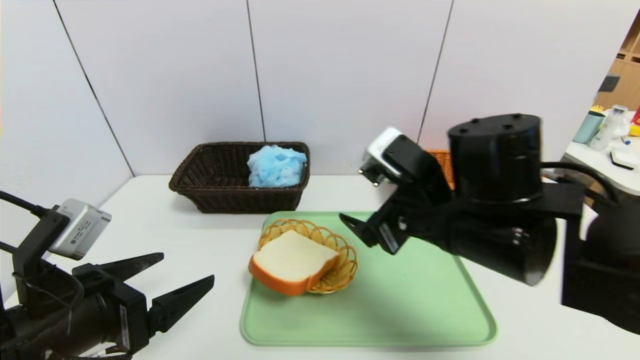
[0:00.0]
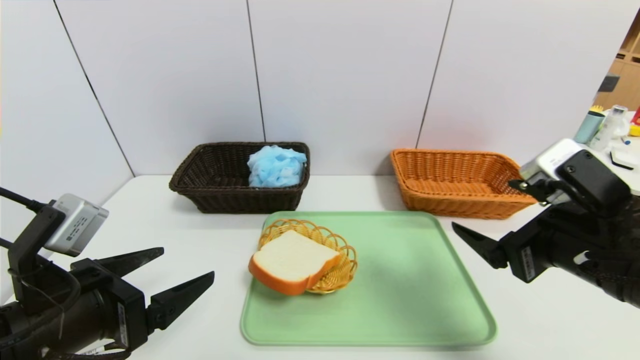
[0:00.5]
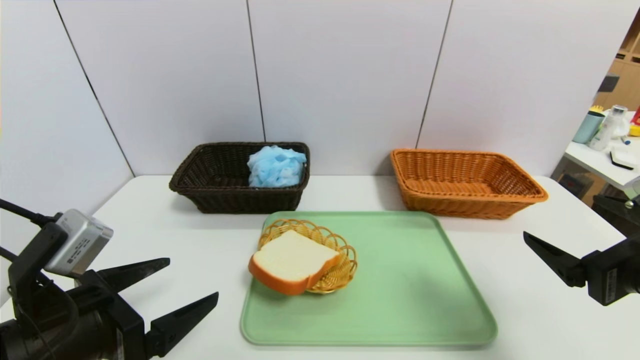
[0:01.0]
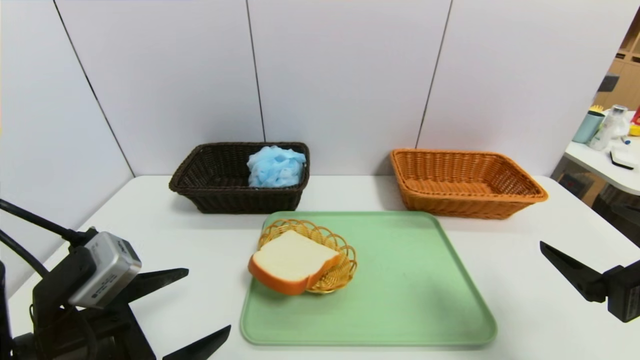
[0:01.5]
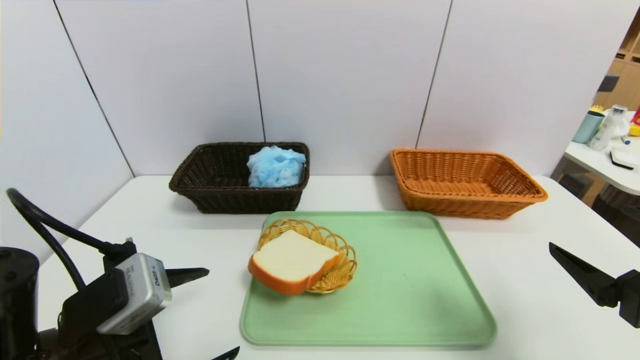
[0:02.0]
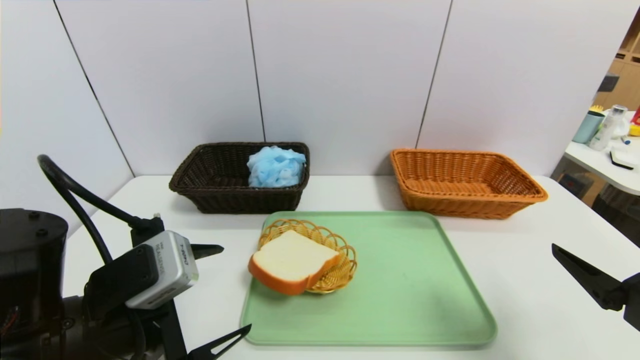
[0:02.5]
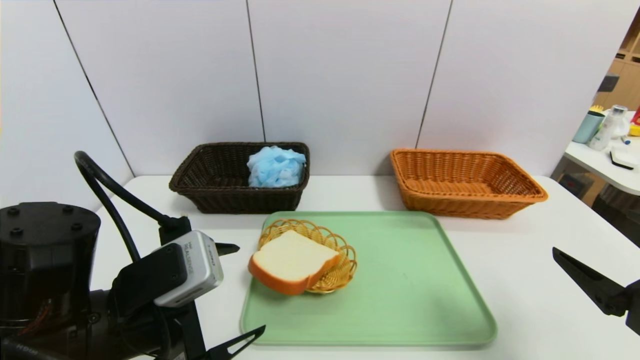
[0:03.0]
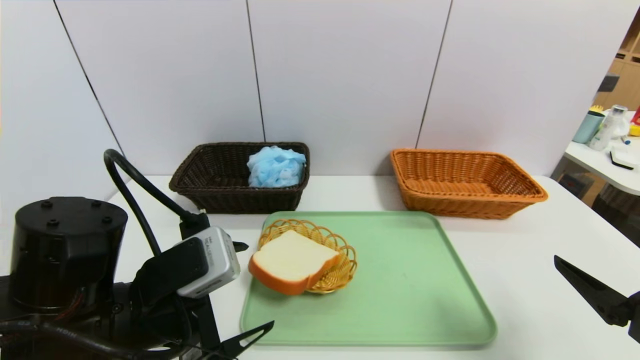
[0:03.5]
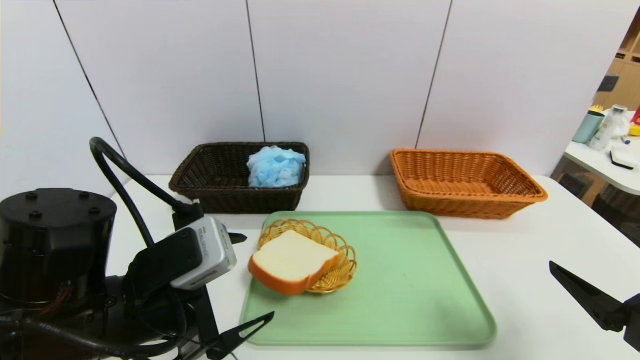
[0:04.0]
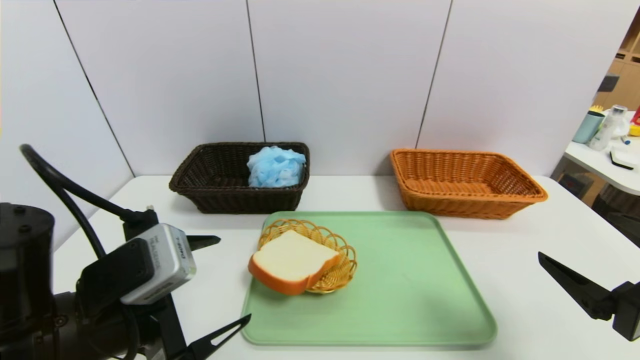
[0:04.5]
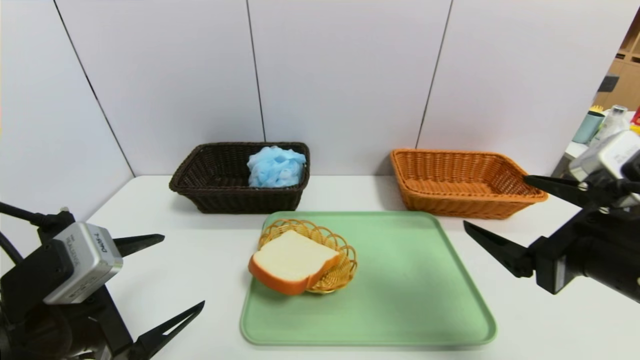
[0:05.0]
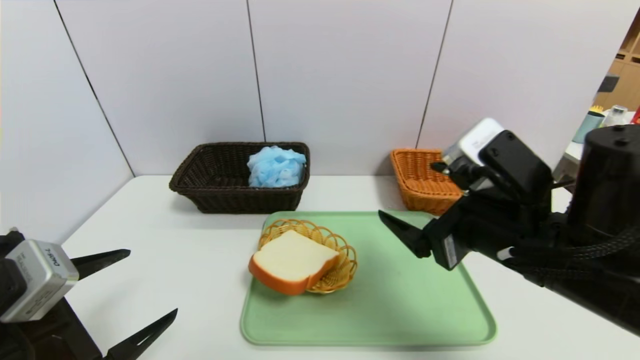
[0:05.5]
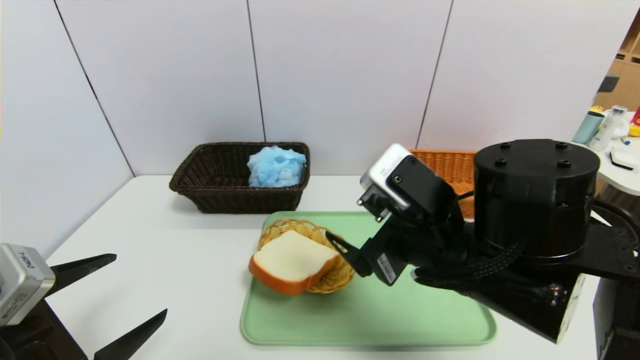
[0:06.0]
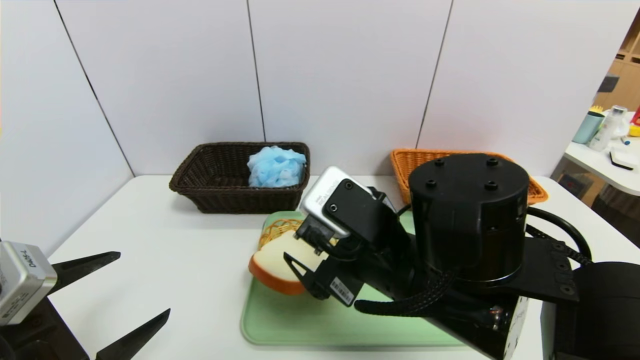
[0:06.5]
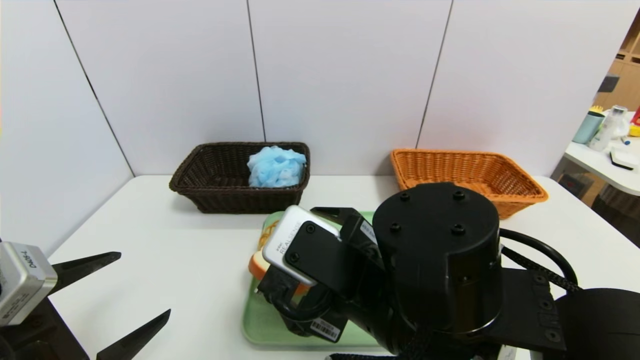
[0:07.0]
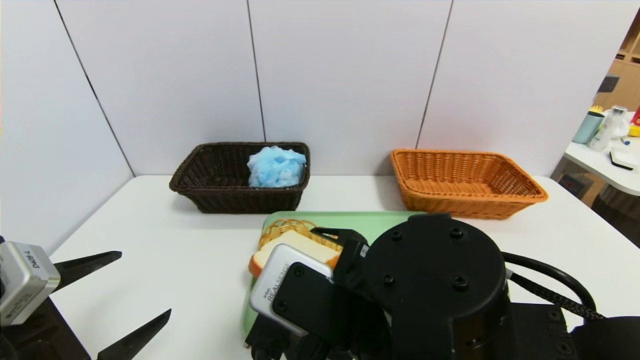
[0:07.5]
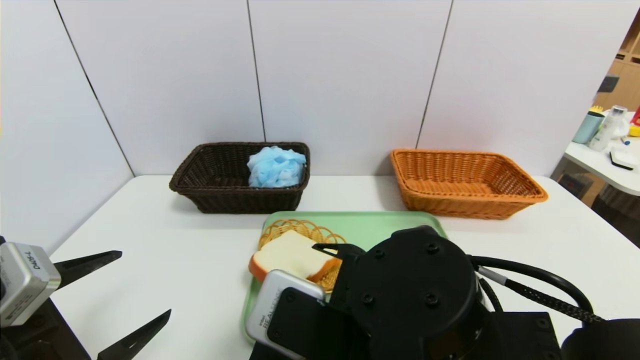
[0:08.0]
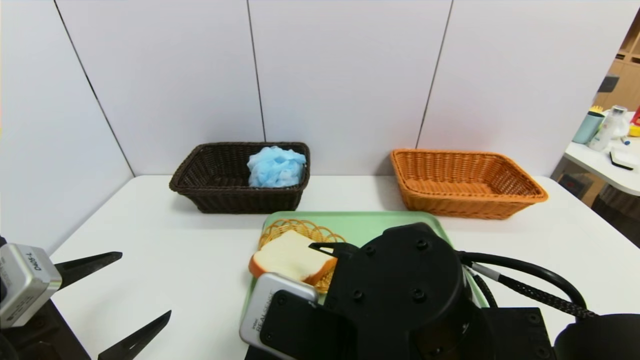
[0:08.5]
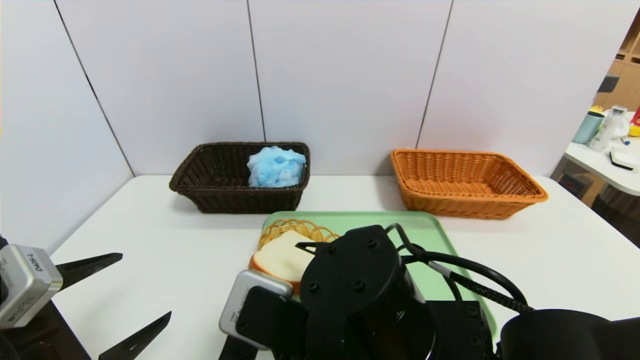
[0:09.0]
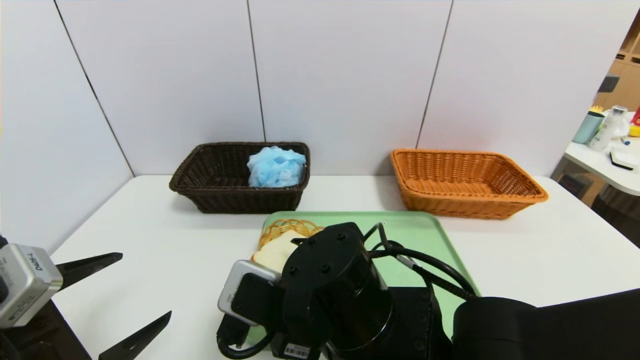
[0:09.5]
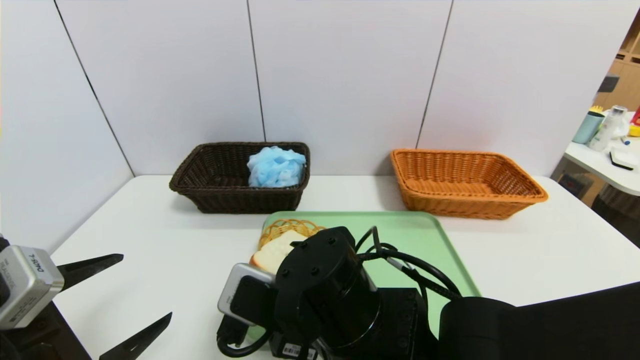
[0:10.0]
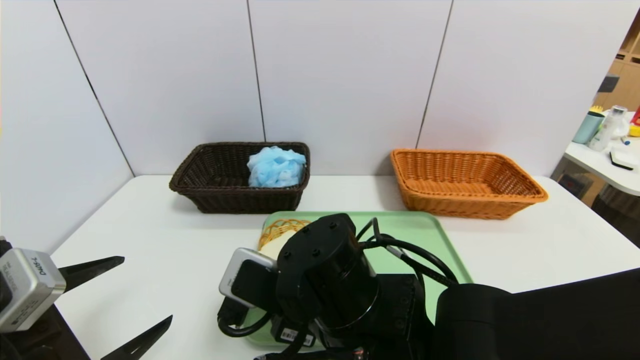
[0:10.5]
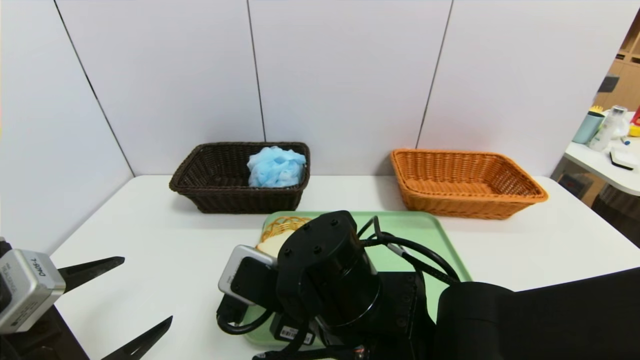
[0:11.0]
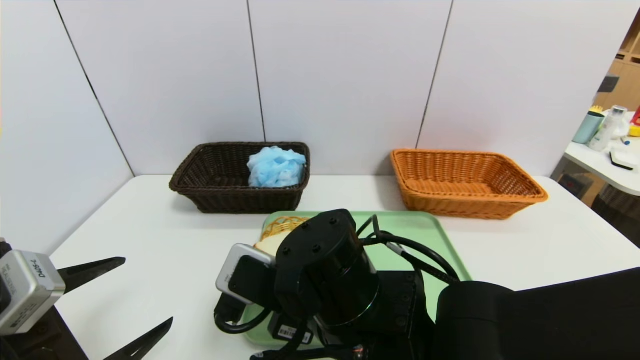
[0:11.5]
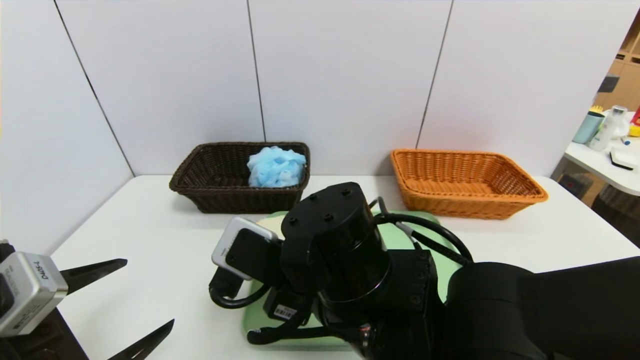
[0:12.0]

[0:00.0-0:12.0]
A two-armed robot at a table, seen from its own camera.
Task of the whole recording: place the food in the right basket with the right gripper, and place the non food items in the left basket with the left gripper.
0:00.0 to 0:02.0: The right gripper moves to the right and backward, roughly 20 cm.
0:02.0 to 0:04.0: The left gripper shifts by about 5 cm.
0:04.0 to 0:06.0: The left gripper travels to the left and backward by approximately 10 cm, while the right gripper shifts some 20 cm to the left and forward.
0:06.0 to 0:08.0: The right gripper goes some 10 cm to the left and backward.
0:08.0 to 0:10.0: The right gripper moves roughly 5 cm.
0:10.0 to 0:12.0: The right gripper closes up.

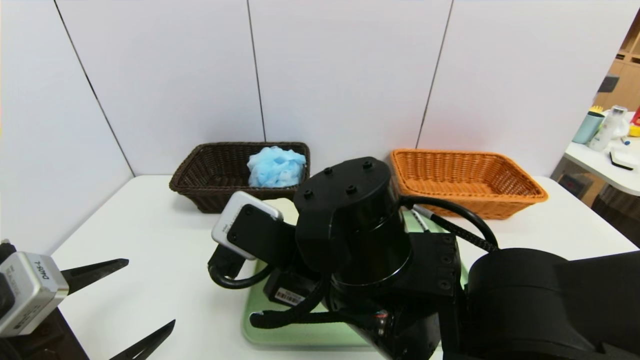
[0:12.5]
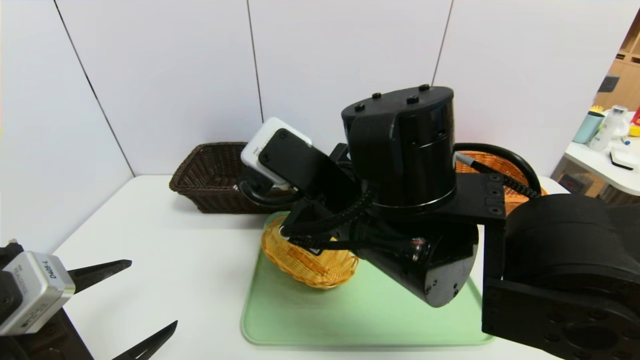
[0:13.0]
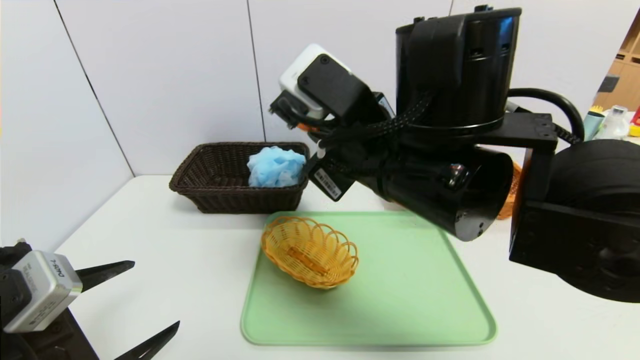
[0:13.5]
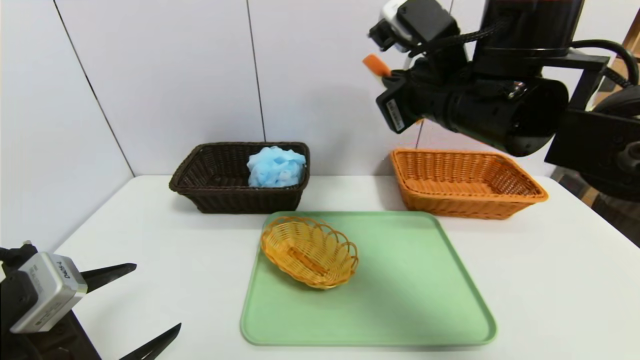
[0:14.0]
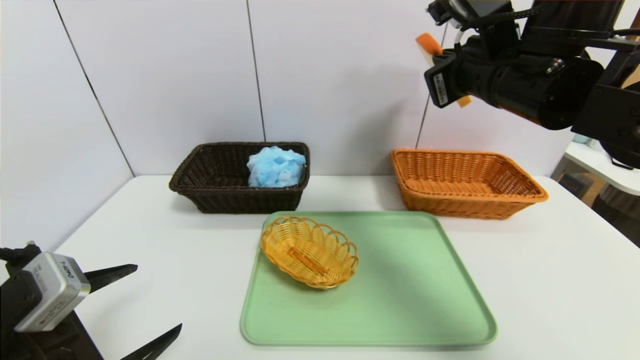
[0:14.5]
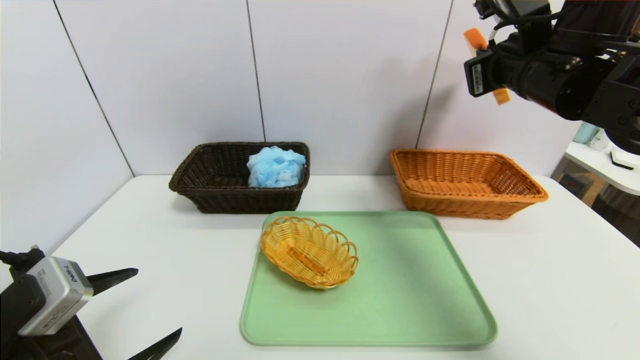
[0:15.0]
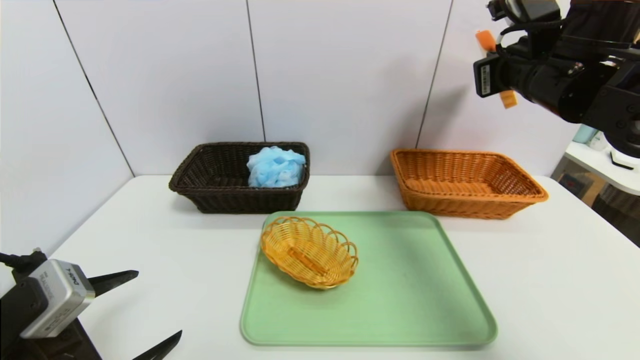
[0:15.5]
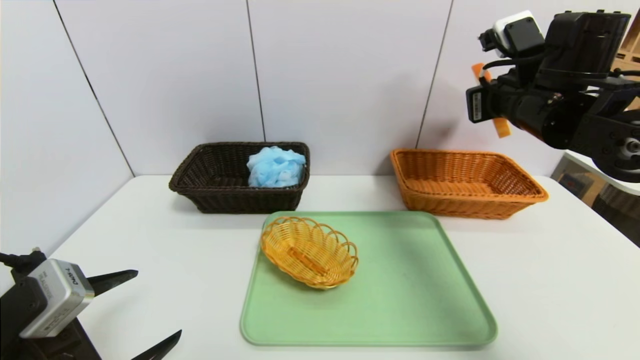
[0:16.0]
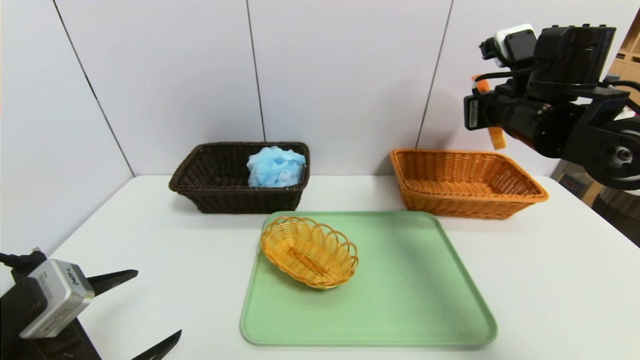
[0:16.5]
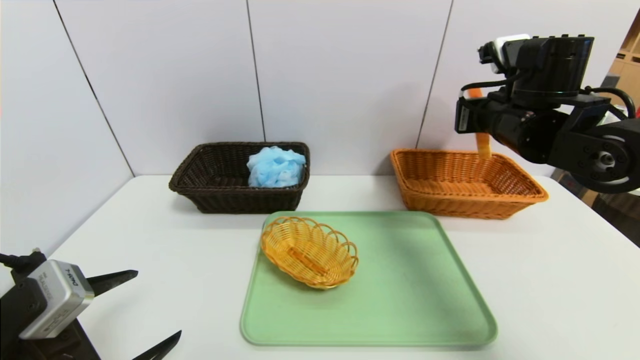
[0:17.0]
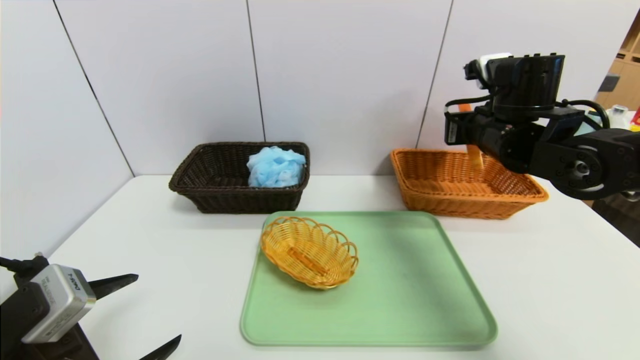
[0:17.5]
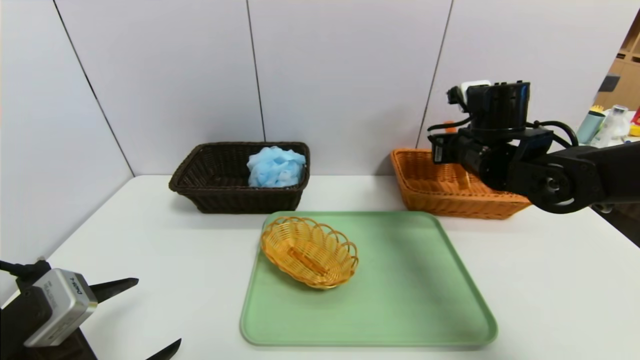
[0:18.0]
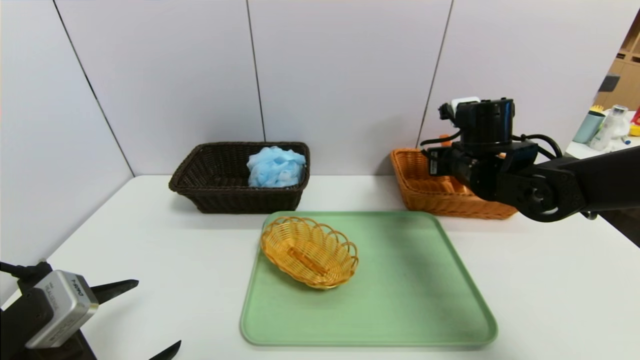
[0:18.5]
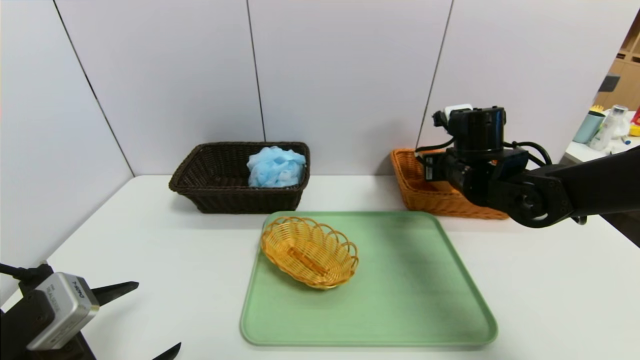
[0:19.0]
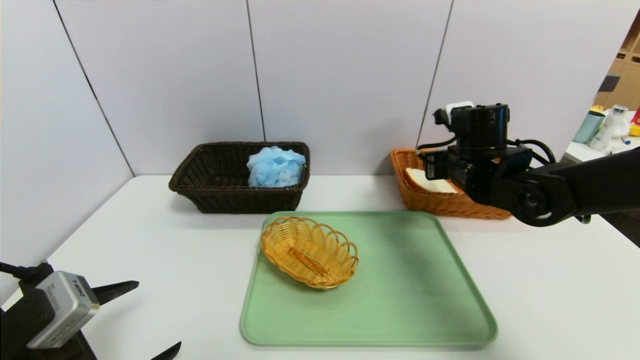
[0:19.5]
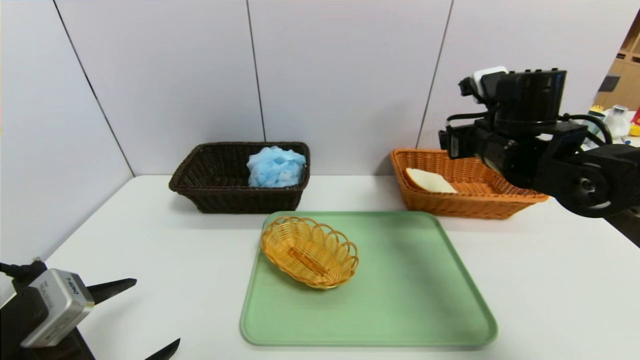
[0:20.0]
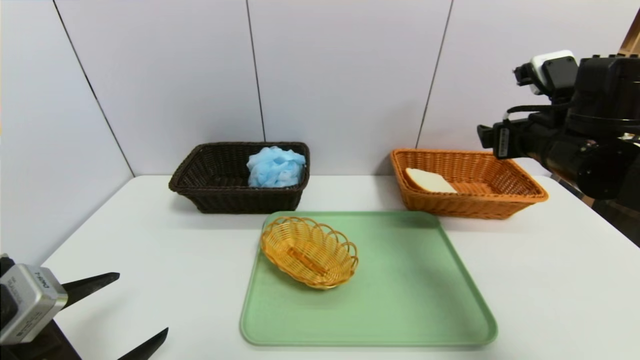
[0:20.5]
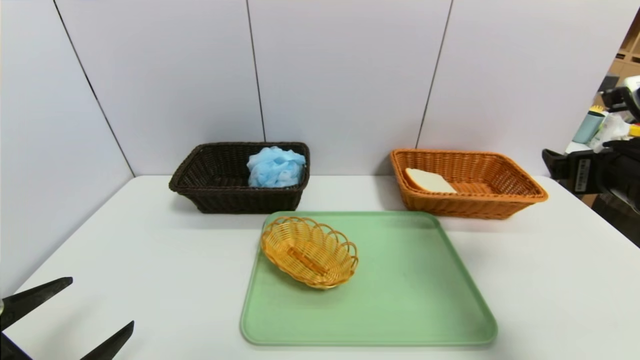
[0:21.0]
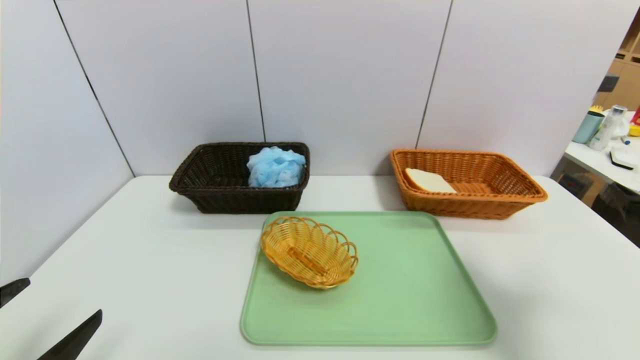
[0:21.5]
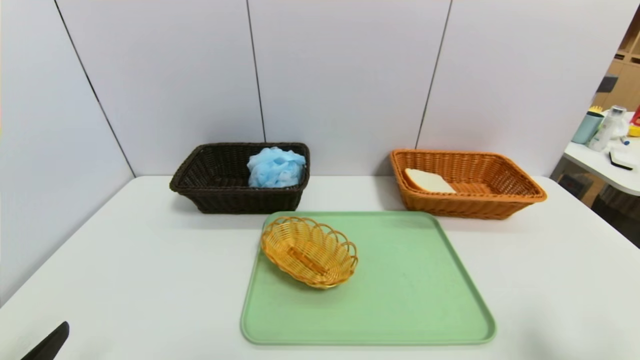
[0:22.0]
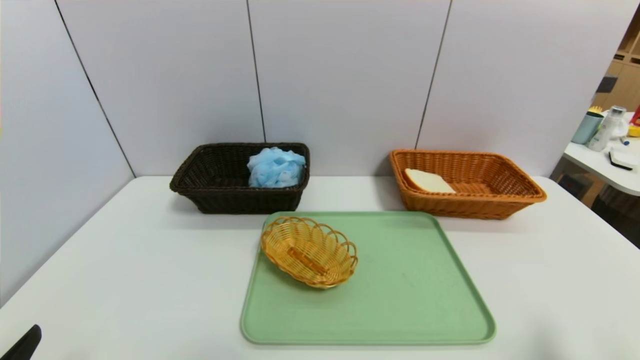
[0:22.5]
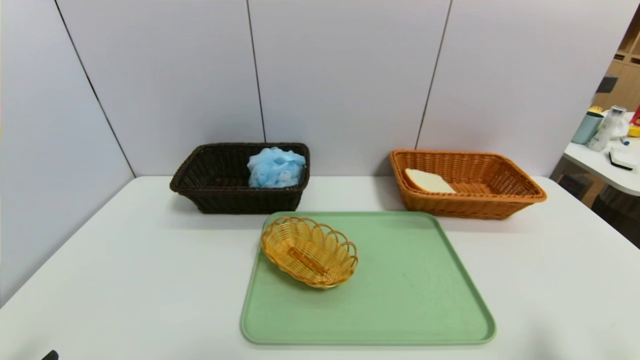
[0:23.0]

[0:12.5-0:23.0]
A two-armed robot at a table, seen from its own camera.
Task of the whole recording: place the food in the right basket with the right gripper, and place the non food items in the left basket with the left gripper.
Step, 0:12.5 to 0:19.0: Grasp the bread slice and put it in the right basket.
0:12.5 to 0:14.5: The right gripper is displaced to the right, forward and upward by approximately 25 cm.
0:14.5 to 0:16.5: The right gripper is displaced to the right and downward by some 10 cm.
0:16.5 to 0:19.0: The right gripper shifts approximately 10 cm downward, and opens up.
0:19.0 to 0:21.0: The right gripper travels backward, to the right and upward by about 20 cm, and opens.
0:21.0 to 0:23.0: The right gripper travels backward and downward by some 20 cm. Meanwhile the left gripper travels backward by roughly 5 cm.
